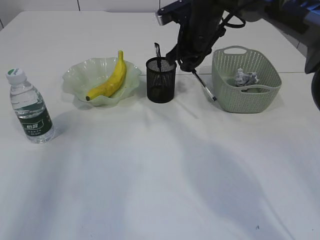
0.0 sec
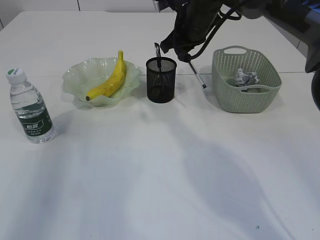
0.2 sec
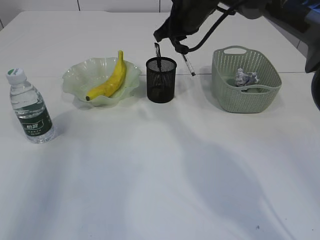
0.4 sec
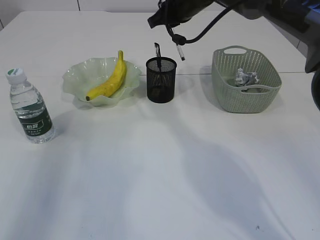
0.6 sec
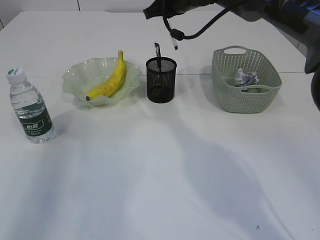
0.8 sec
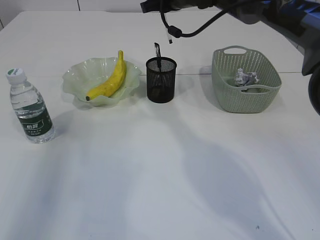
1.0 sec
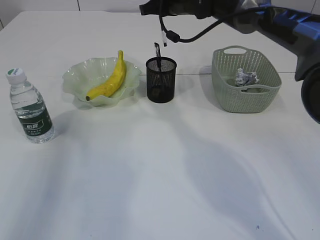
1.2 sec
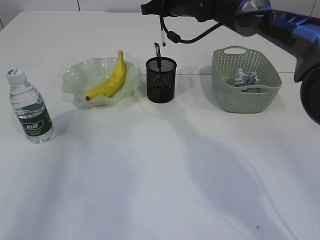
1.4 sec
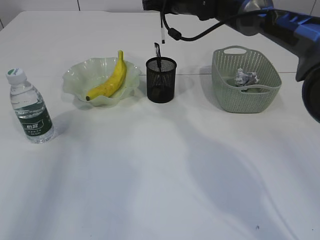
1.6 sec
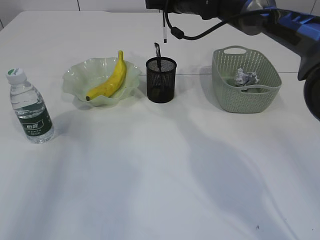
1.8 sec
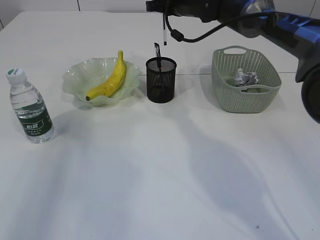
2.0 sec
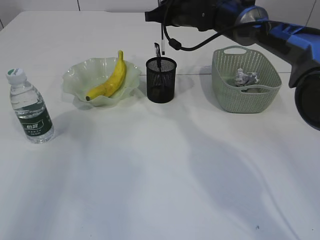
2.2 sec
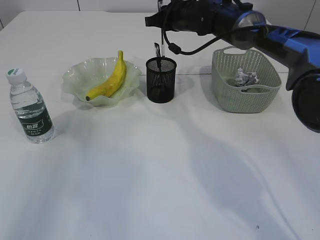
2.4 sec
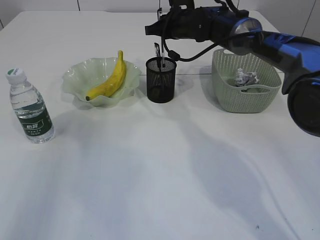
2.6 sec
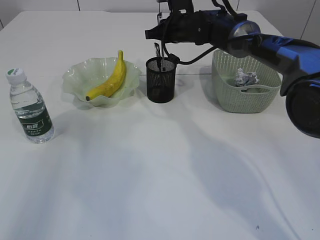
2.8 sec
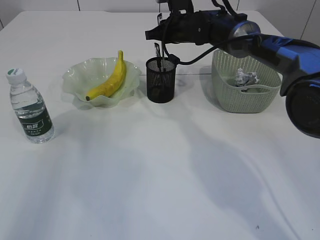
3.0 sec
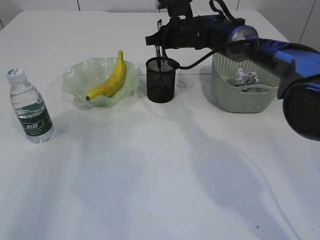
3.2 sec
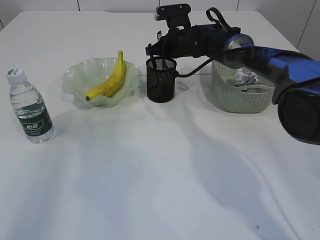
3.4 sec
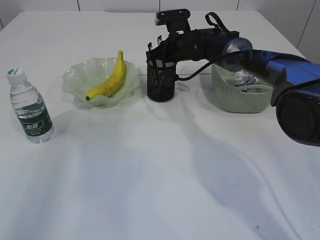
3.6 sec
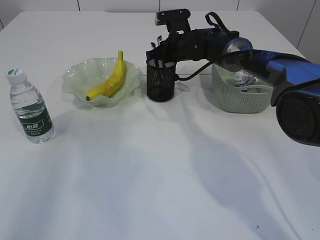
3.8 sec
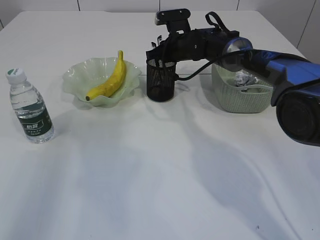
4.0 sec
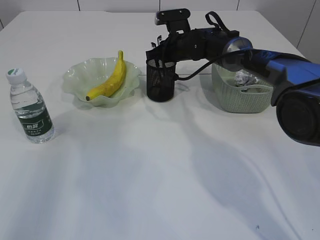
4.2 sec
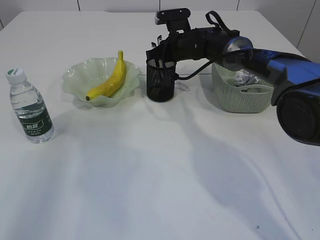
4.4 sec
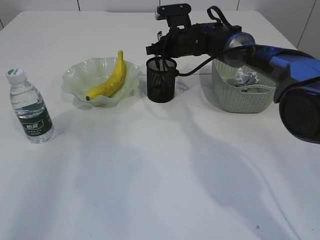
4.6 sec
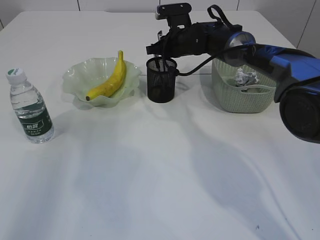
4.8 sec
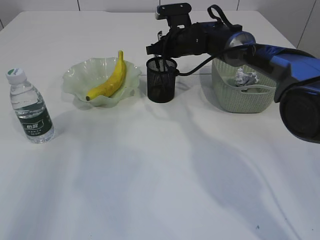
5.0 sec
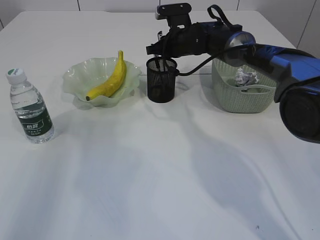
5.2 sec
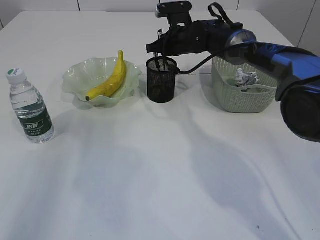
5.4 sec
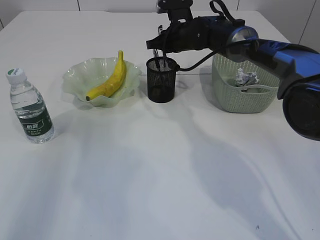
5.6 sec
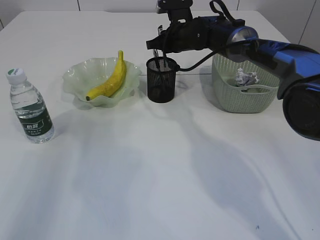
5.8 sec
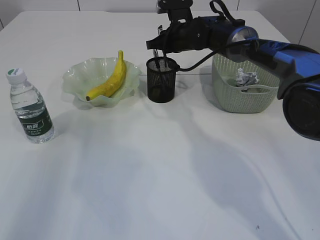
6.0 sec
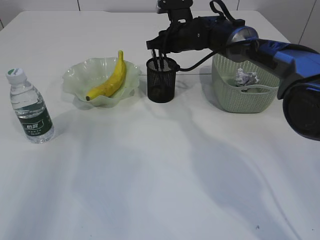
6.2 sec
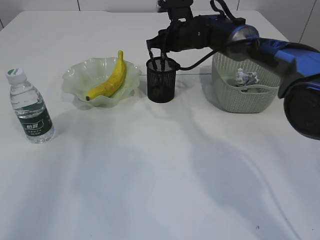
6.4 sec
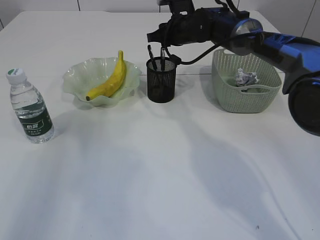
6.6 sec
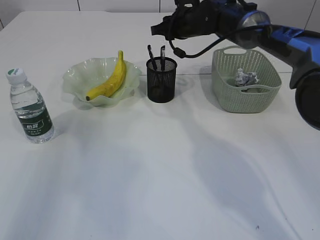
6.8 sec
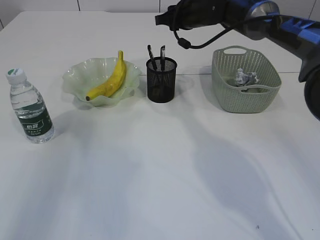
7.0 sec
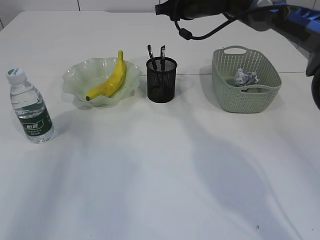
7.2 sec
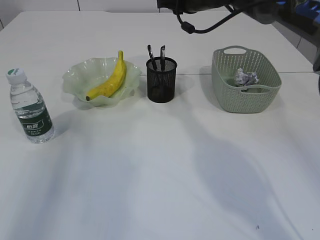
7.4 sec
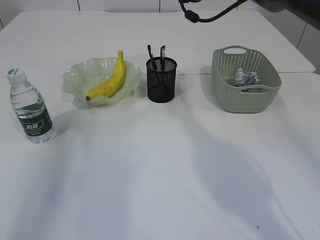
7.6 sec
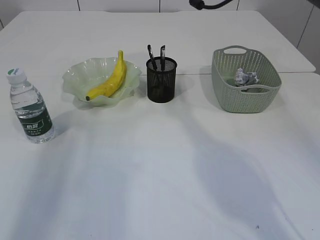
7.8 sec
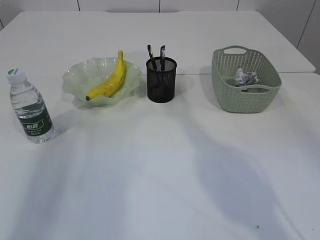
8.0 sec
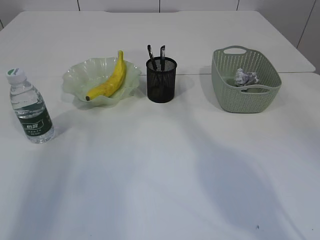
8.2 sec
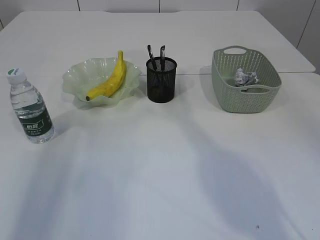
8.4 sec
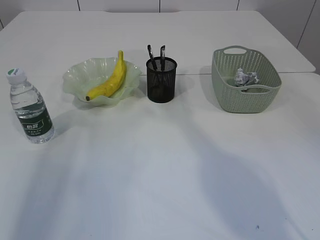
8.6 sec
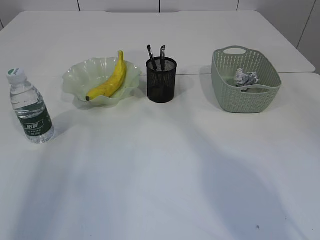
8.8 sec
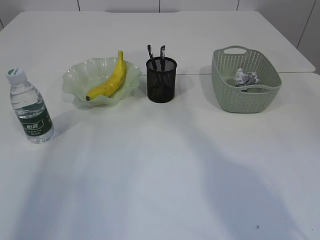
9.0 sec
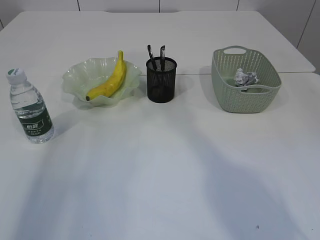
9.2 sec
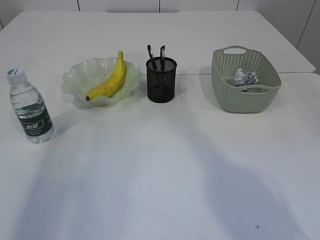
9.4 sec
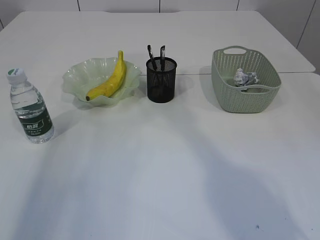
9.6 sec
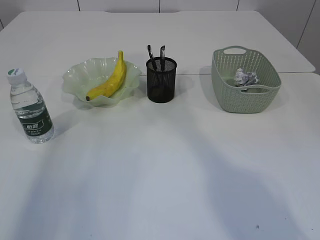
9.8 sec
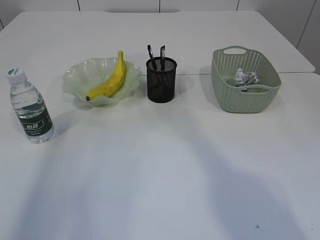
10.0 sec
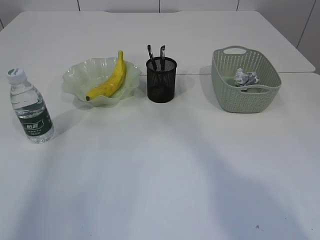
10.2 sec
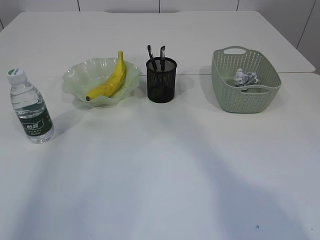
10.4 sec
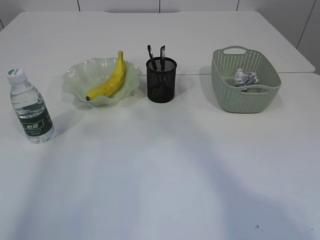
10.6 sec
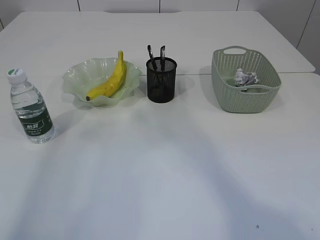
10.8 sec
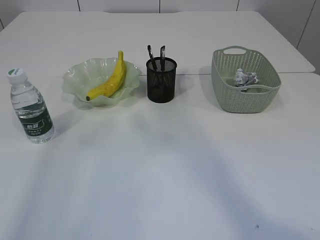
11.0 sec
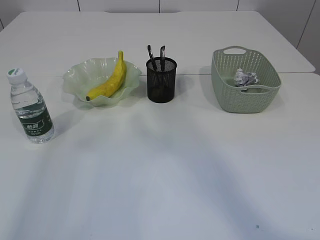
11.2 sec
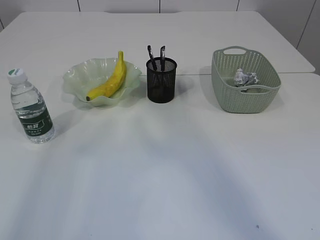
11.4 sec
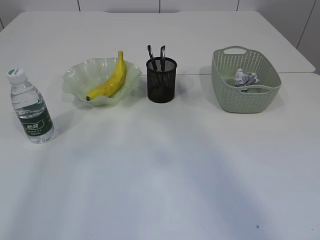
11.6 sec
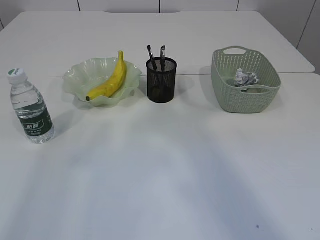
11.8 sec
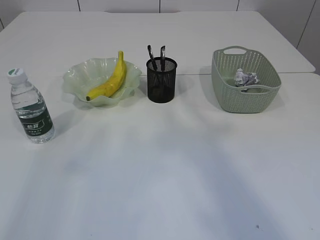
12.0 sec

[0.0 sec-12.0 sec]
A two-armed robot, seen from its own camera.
Step, 0.0 sec to 6.8 sec: Place the pen into the pen holder.
0.0 sec to 1.6 sec: The right gripper goes some 5 cm forward.
1.6 sec to 3.0 sec: The right gripper moves downward, approximately 5 cm.
3.0 sec to 6.0 sec: The grippers move only a little.
6.0 sec to 7.6 sec: The right gripper moves upward, approximately 10 cm.
7.6 sec to 9.0 sec: The right gripper travels upward and backward by roughly 20 cm, and opens up.
